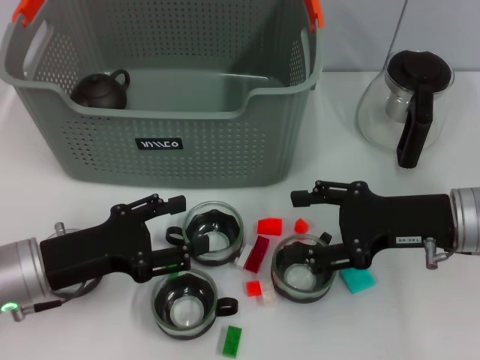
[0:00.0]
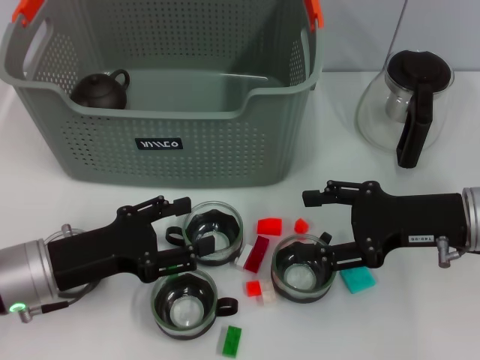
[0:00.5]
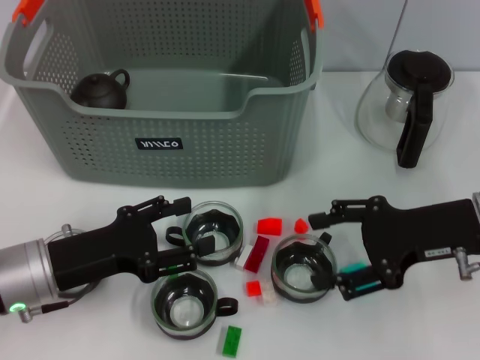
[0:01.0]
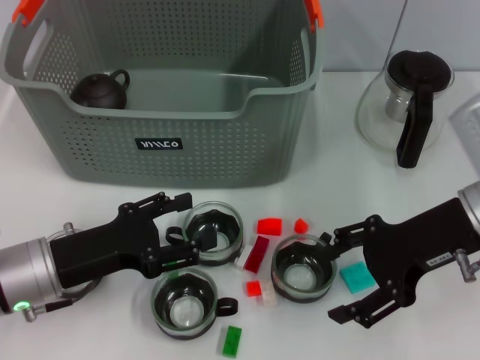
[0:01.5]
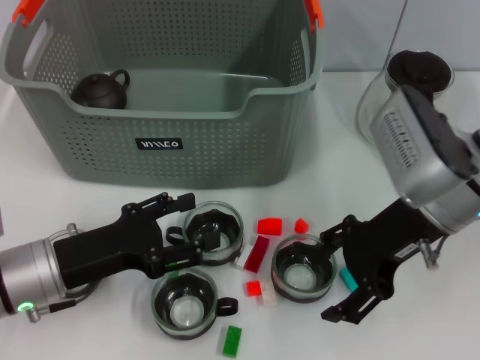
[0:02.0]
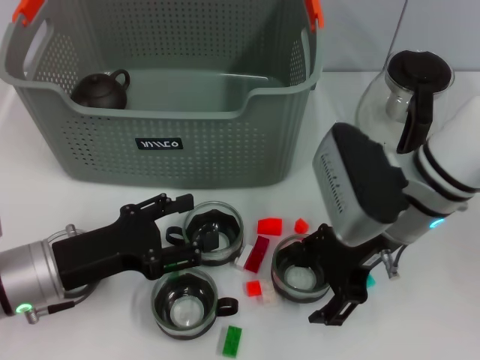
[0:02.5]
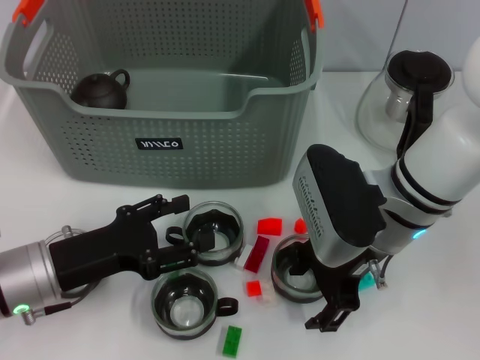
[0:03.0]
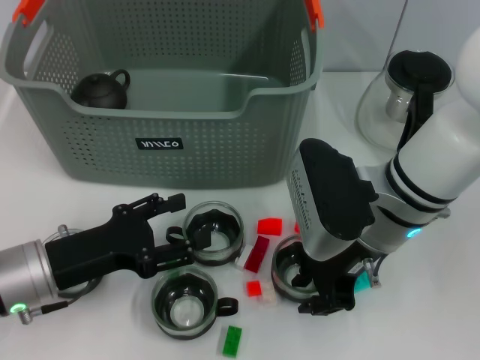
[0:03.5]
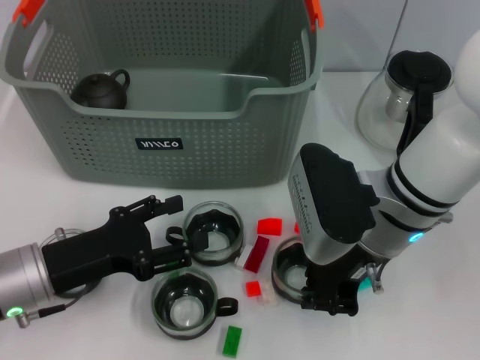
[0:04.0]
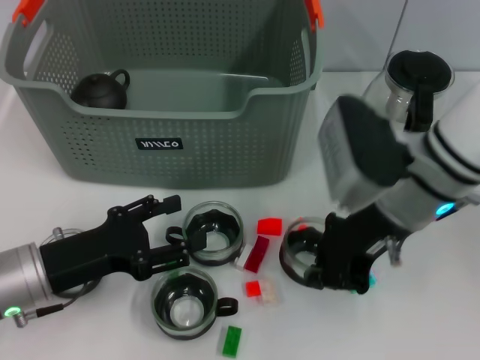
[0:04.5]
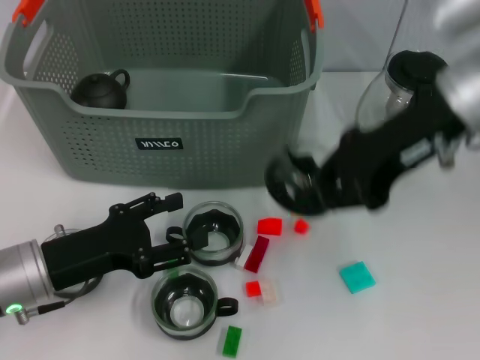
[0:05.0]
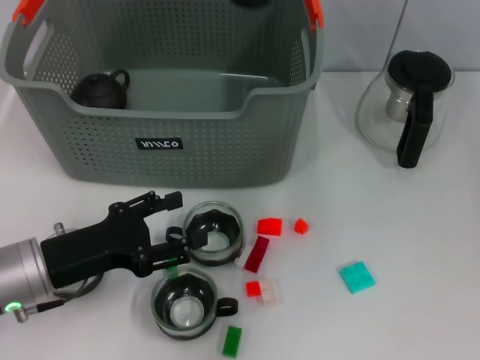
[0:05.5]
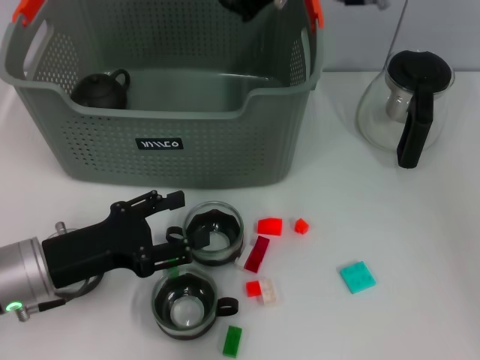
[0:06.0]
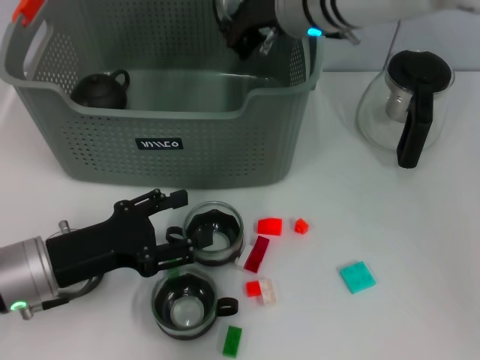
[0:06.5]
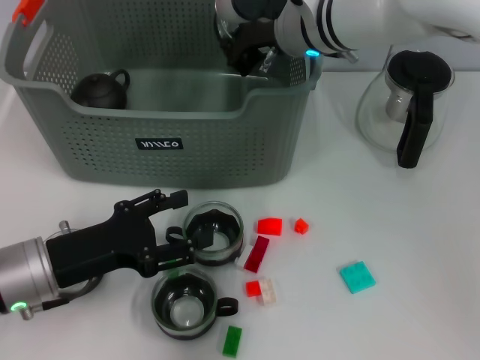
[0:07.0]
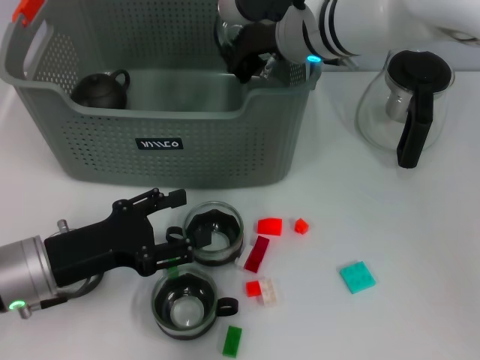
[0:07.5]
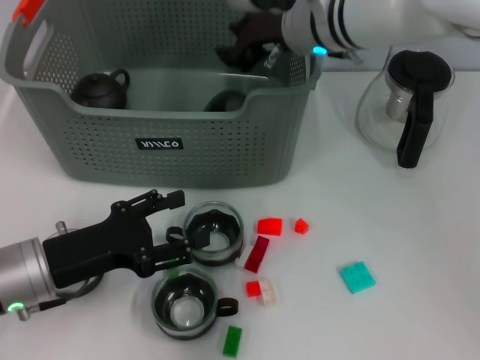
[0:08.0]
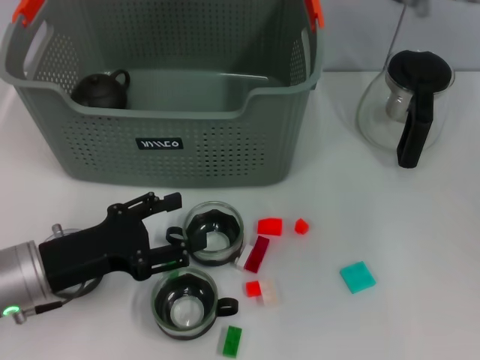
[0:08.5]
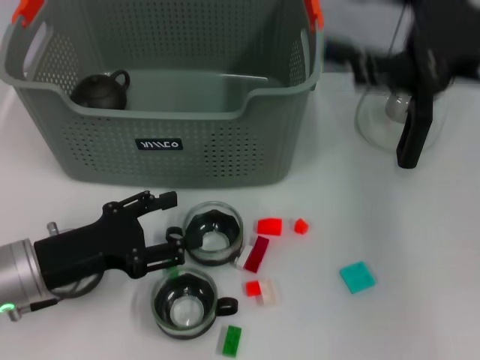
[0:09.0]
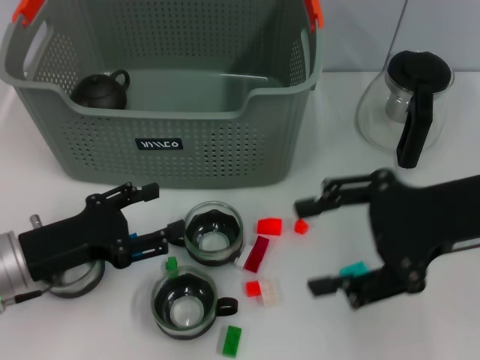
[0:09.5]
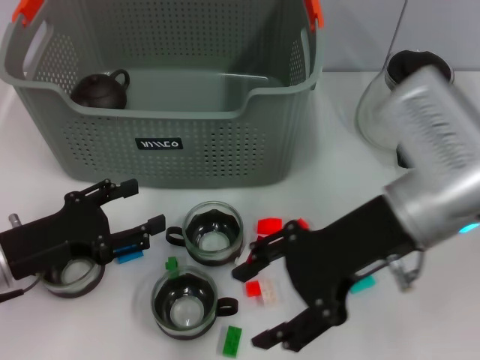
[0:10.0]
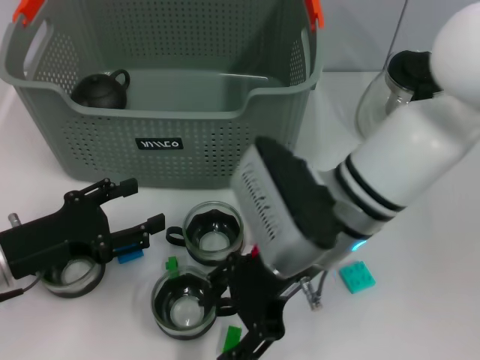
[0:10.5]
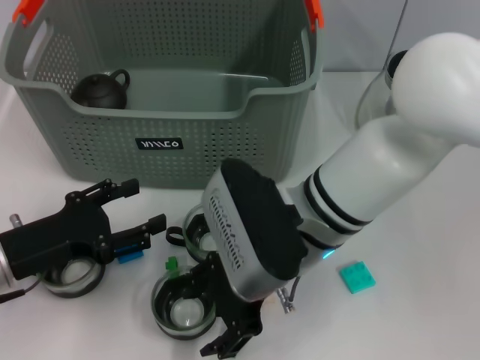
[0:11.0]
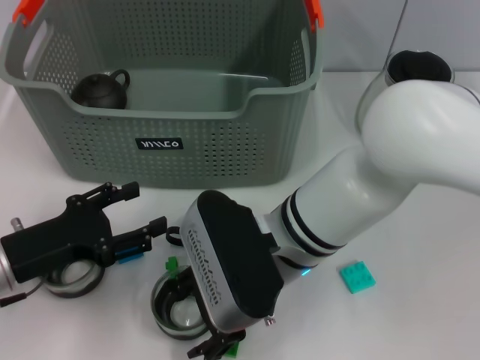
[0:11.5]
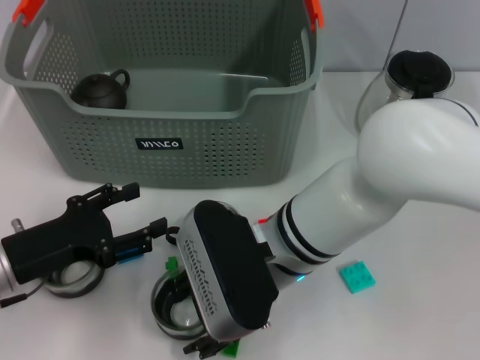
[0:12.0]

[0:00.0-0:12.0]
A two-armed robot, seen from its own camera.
Task of the whole recording: pick up the teacup on the table and place it into the storage bin, pick up the block on the table and place it into the storage bin.
Step, 0:00.0 to 0:03.5: Grasp the cup with right gripper.
Step, 0:04.0 to 0:08.0: Place the cup in the storage box with right gripper.
0:00.0 to 0:02.0: The right gripper moves to the left and upward, about 5 cm.
0:02.0 to 0:04.0: The right gripper goes some 5 cm to the left, and closes up.
0:04.0 to 0:06.0: The right gripper travels forward and upward by approximately 20 cm.
0:06.0 to 0:08.0: The right gripper travels downward by roughly 5 cm.
0:08.0 to 0:10.0: The right gripper heads backward and to the right, covering roughly 15 cm, and opens its fingers.
0:10.0 to 0:12.0: The right gripper heads to the left and downward, covering some 15 cm.

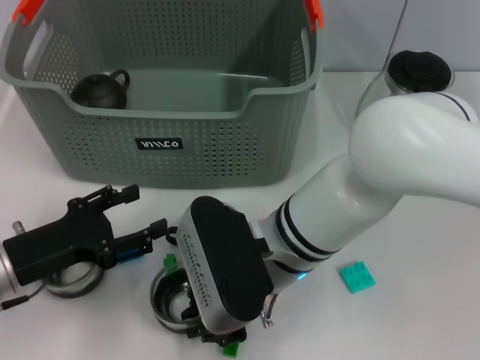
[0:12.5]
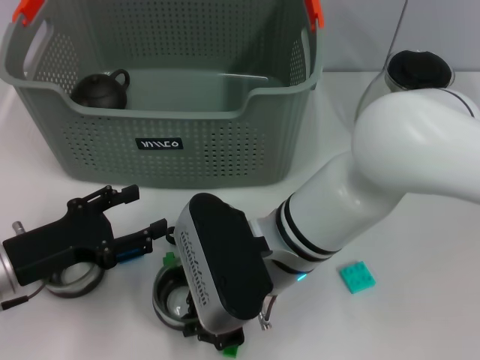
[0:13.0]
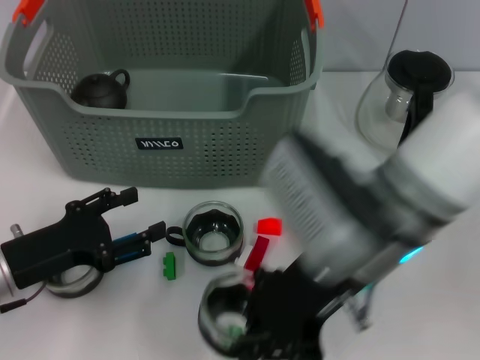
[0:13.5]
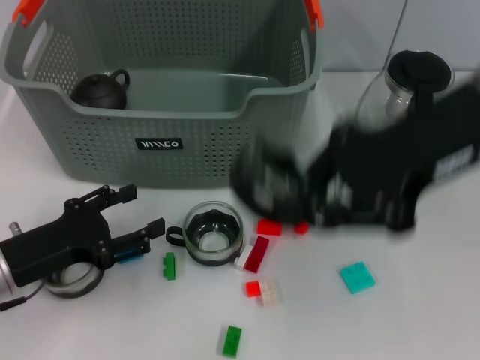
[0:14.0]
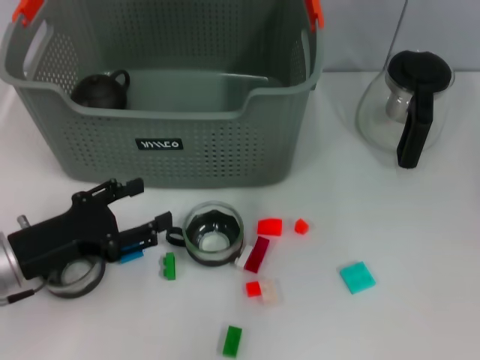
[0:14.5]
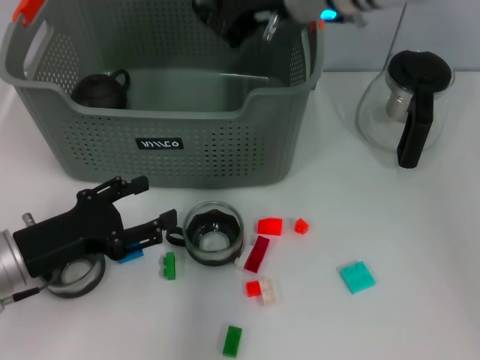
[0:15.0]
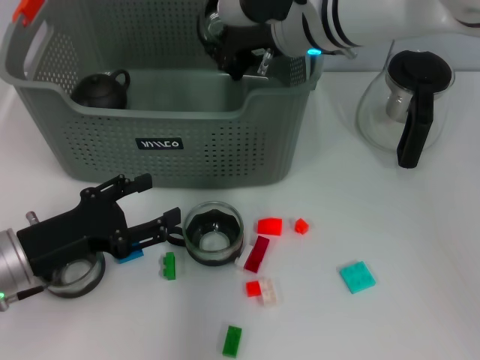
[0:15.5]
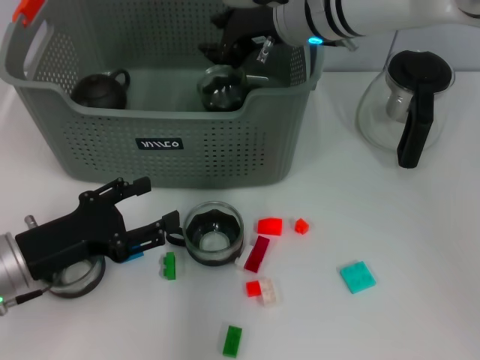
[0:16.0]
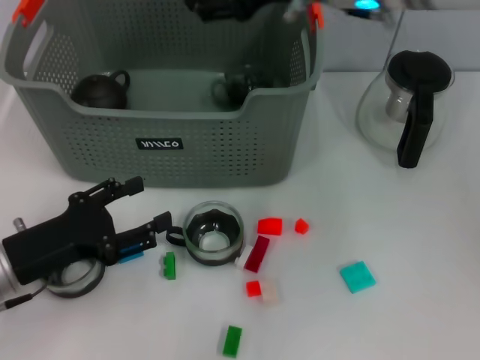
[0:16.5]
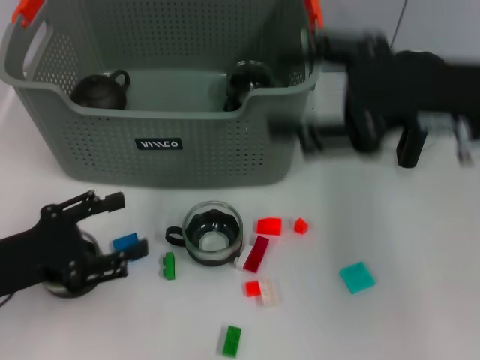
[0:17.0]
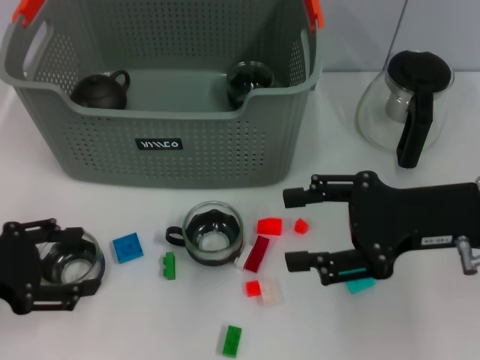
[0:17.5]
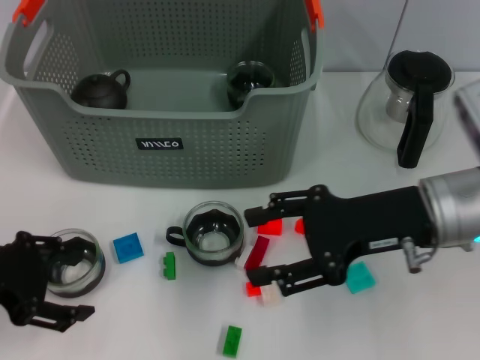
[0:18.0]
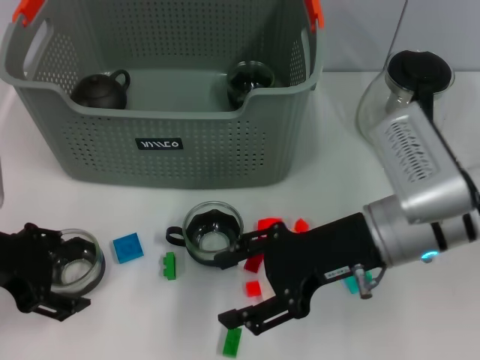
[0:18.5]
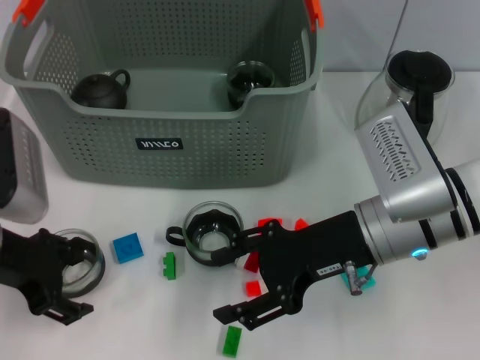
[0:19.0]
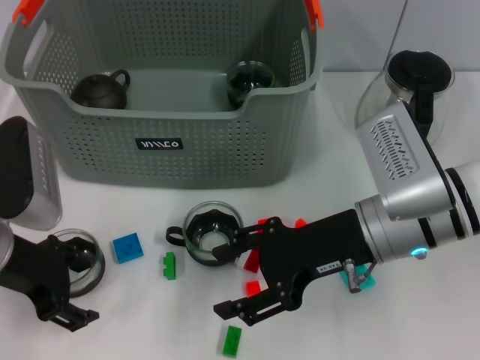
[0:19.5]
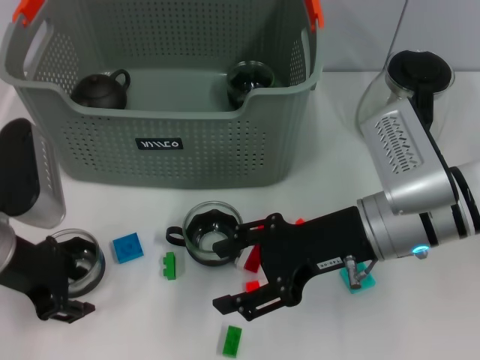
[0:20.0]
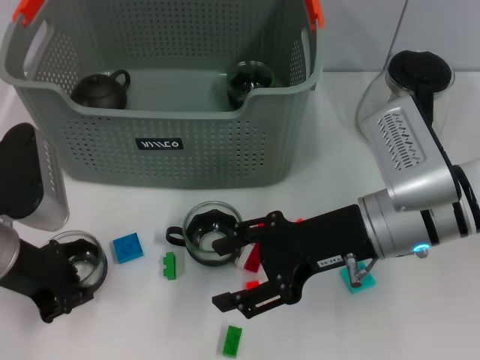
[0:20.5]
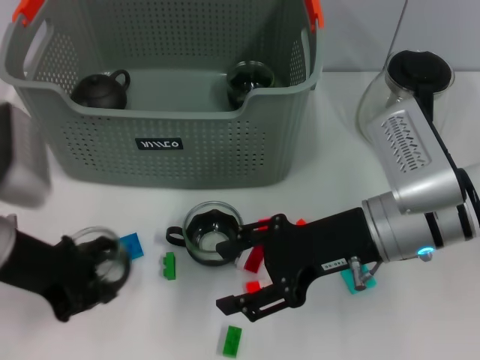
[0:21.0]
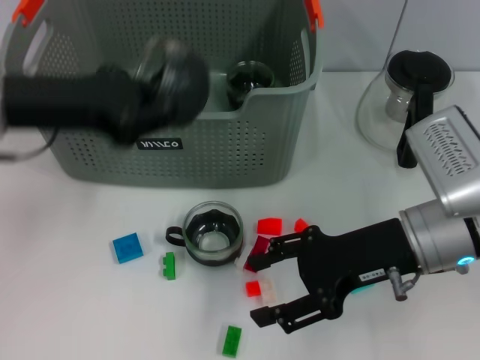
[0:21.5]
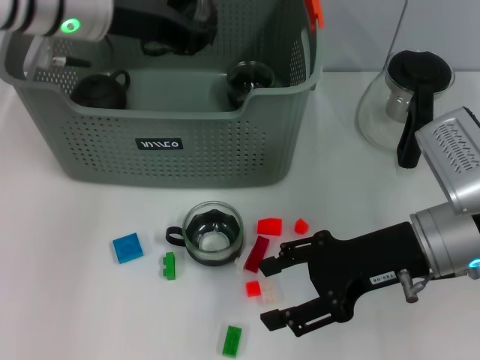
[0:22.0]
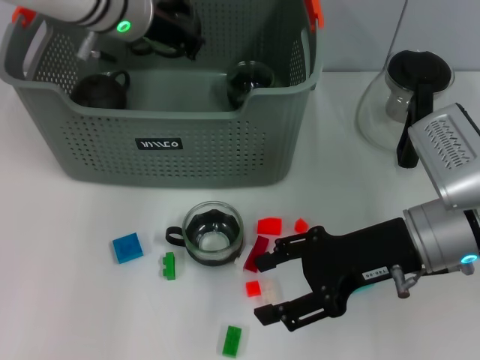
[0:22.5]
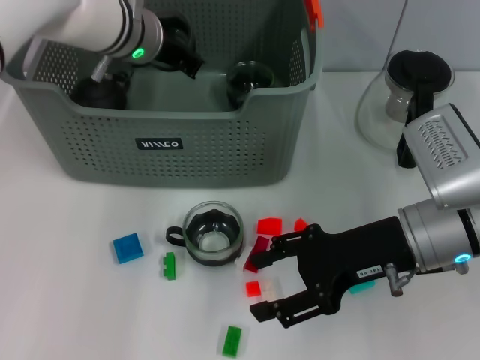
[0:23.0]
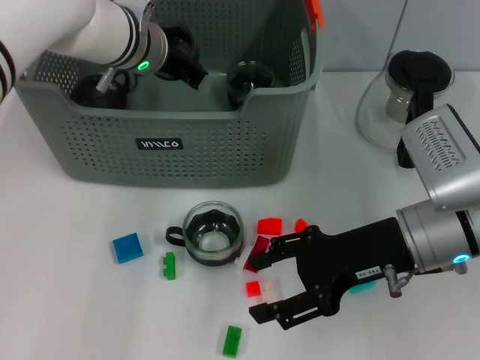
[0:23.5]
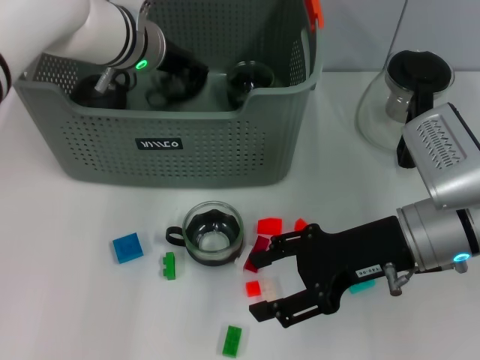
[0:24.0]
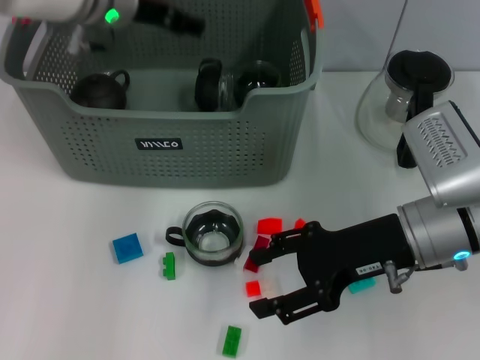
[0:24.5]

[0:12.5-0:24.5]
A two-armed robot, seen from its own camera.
Task of the whole recording: pick up the teacup on the table and place it into the storage bin, pick up the block on the table and place it into the storage bin.
Step, 0:13.0 to 0:16.0: Place the cup in the storage box with right gripper.
Step, 0:16.5 to 0:20.5: Grasp the cup with left gripper.
Step, 0:21.0 to 0:24.0: Place the cup in the storage box with left gripper.
0:12.5 to 0:14.5: The right gripper heads upward, forward and to the right, covering some 25 cm.
0:14.5 to 0:16.5: The right gripper opens its fingers.
0:16.5 to 0:18.5: The left gripper is displaced upward by roughly 10 cm; the right gripper travels downward and backward by approximately 20 cm.
0:18.5 to 0:20.5: The left gripper closes up.
0:20.5 to 0:22.5: The left gripper is displaced forward, to the right and upward by about 25 cm.
0:22.5 to 0:24.5: The left gripper opens up.

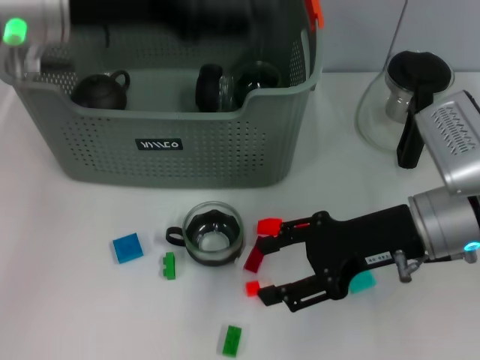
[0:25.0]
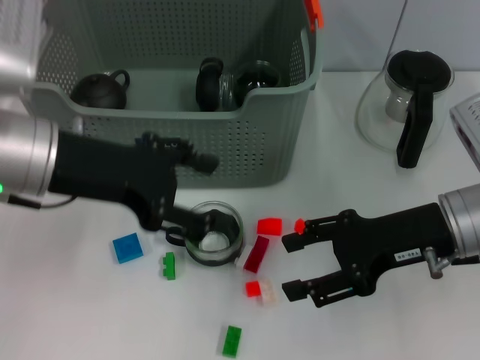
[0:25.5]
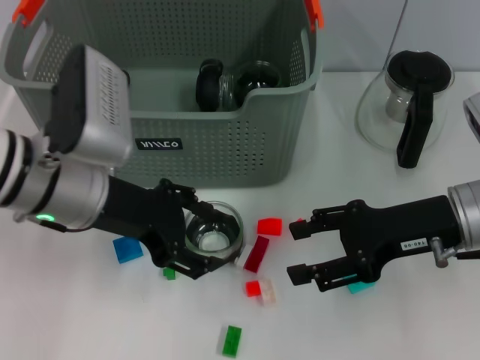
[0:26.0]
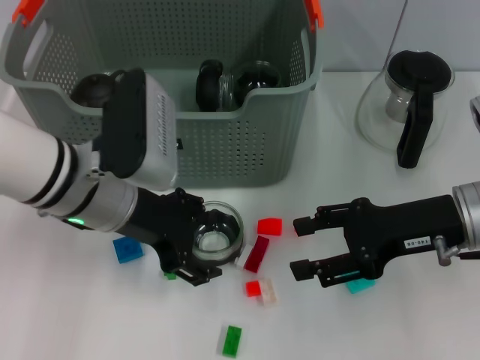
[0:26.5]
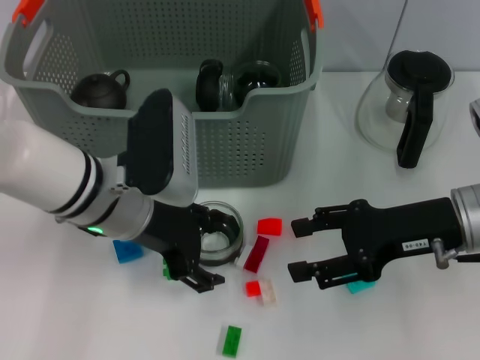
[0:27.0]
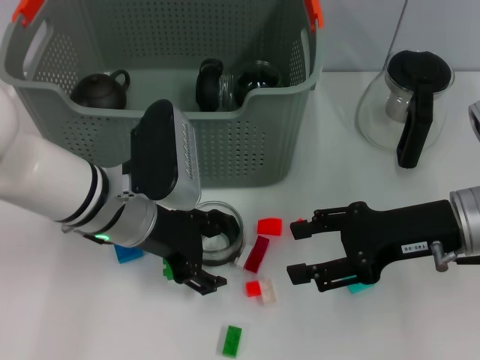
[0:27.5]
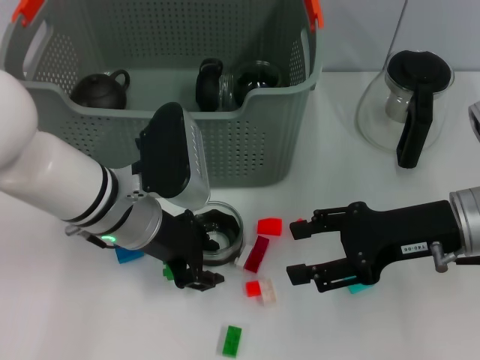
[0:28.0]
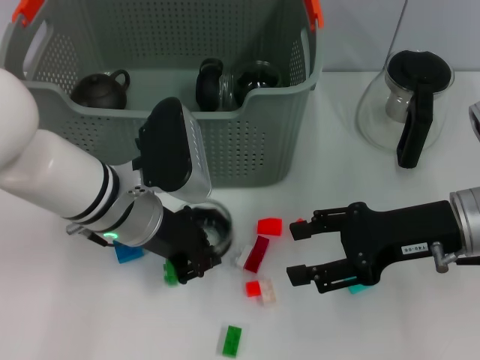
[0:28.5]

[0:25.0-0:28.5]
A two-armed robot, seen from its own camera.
Task of the whole recording: pick up the teacup on the table and place it into the storage bin, pick up the block on the table and place it into the storage bin.
Step, 0:25.0 to 0:28.5: Grasp the cup with left gripper.
0:25.0 to 0:27.0: The left gripper heads downward, covering some 15 cm.
0:27.0 to 0:28.5: The left gripper closes its fingers.
